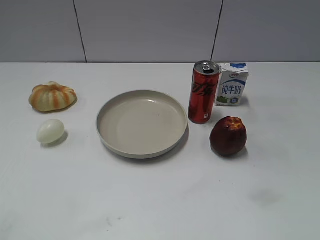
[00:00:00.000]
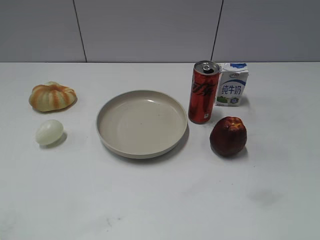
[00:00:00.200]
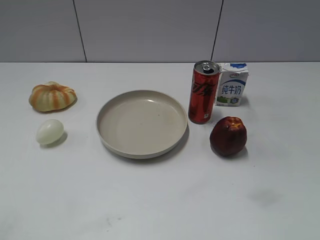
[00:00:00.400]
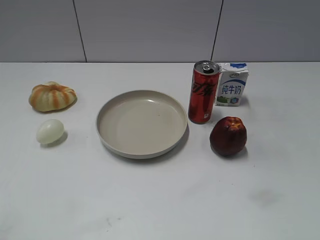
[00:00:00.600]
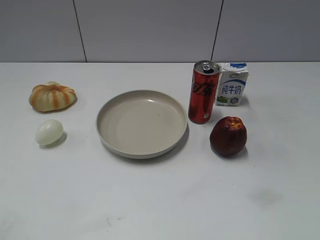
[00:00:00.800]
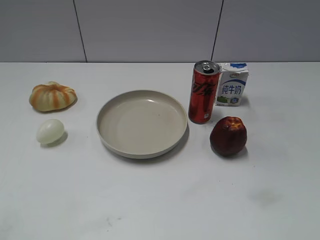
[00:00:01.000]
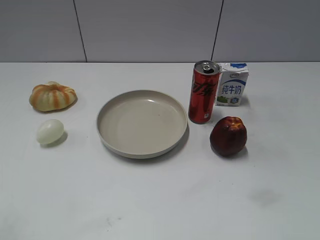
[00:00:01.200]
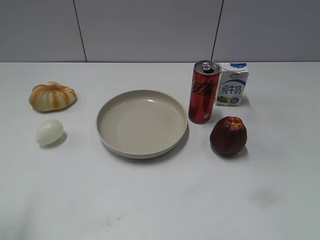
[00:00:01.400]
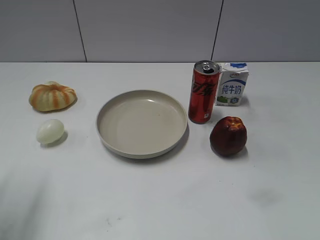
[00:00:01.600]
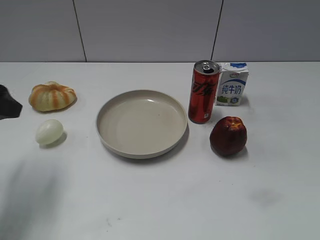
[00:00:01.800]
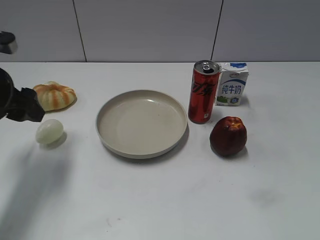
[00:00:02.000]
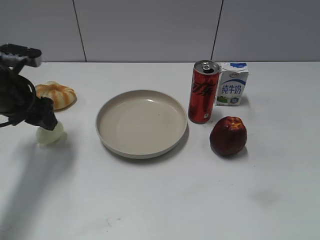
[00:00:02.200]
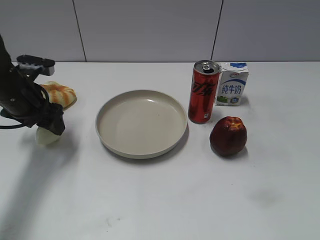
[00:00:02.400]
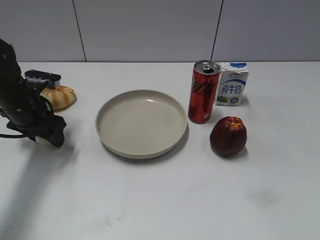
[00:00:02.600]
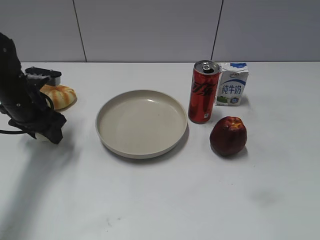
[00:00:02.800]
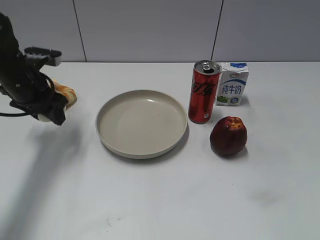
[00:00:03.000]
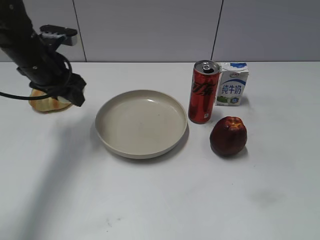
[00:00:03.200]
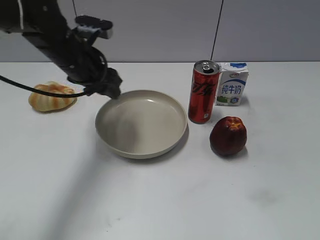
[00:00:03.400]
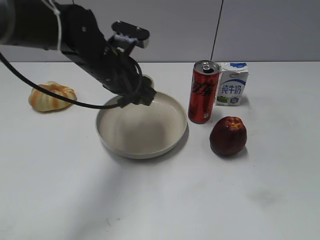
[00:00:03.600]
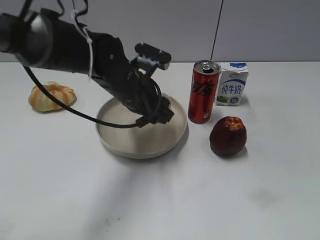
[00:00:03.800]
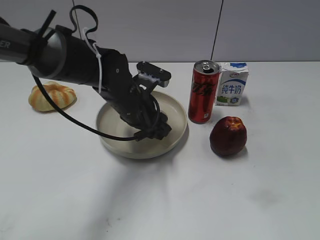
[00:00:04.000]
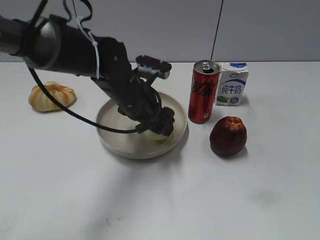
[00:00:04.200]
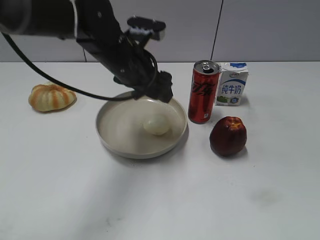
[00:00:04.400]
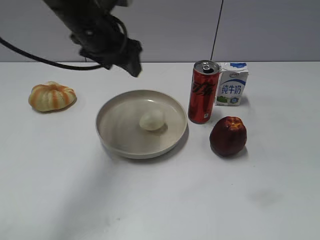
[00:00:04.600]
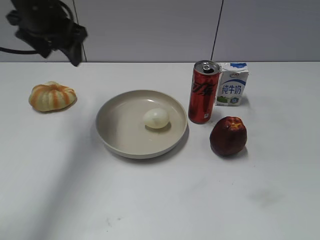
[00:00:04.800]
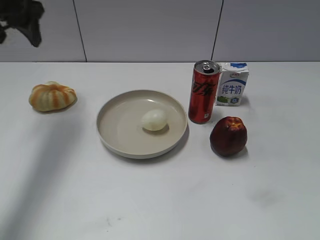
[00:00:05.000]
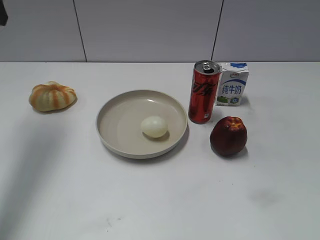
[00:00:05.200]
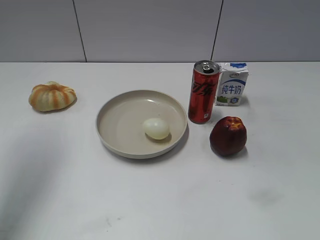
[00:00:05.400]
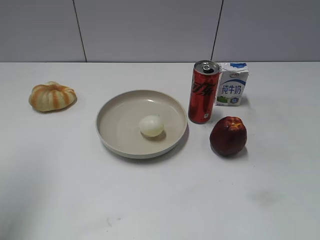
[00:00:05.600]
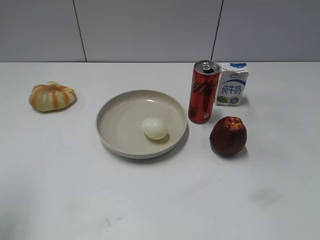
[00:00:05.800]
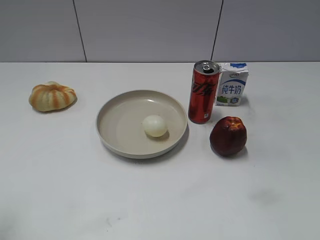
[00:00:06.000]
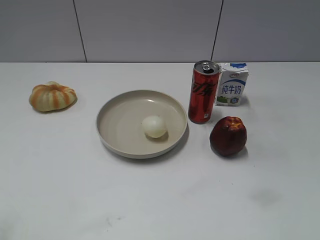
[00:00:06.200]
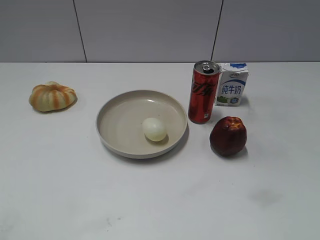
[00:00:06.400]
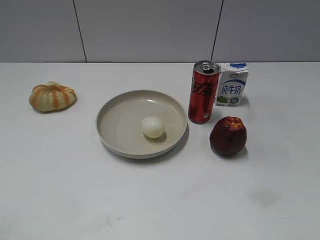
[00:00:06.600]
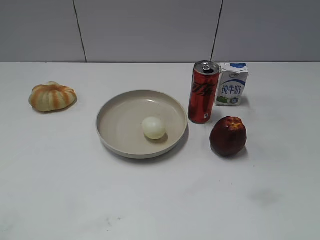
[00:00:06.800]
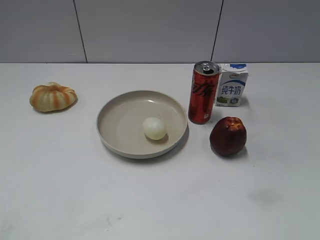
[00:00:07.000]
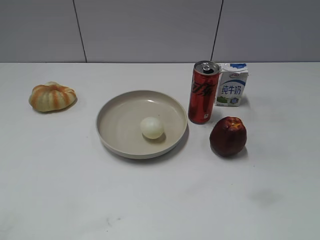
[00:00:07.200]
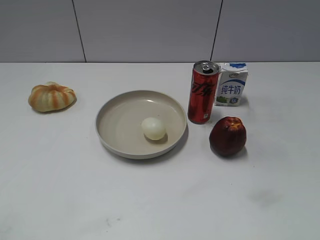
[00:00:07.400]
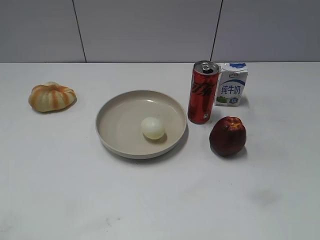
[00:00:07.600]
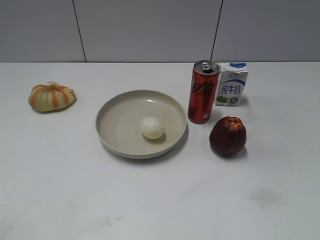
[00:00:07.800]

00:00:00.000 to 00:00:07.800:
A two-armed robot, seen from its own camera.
Step, 00:00:01.000 to 00:00:02.600: Grasp the egg with left gripper.
Step, 00:00:02.800 to 00:00:04.200: Place the egg on the plate with left gripper.
00:00:01.600 to 00:00:03.200: The left gripper shifts approximately 20 cm forward and to the right, and closes up.
00:00:03.200 to 00:00:04.600: The left gripper goes some 10 cm to the right and upward, and opens up.
00:00:04.600 to 00:00:06.200: The left gripper travels backward and to the left by roughly 35 cm.

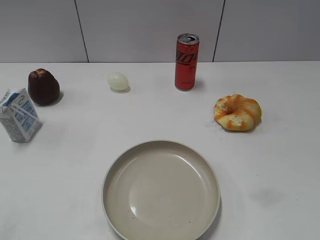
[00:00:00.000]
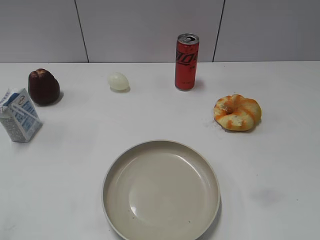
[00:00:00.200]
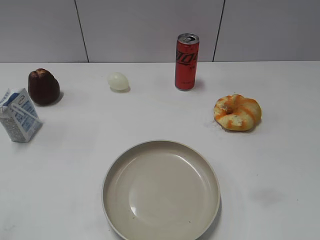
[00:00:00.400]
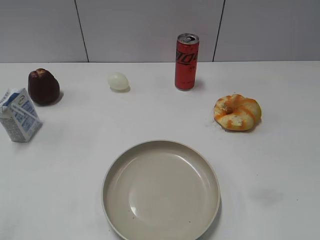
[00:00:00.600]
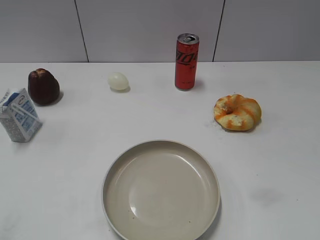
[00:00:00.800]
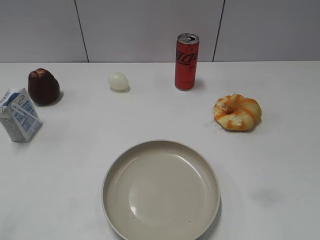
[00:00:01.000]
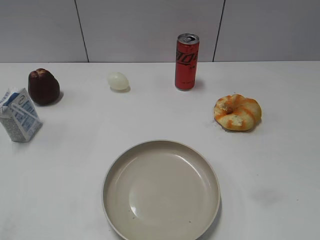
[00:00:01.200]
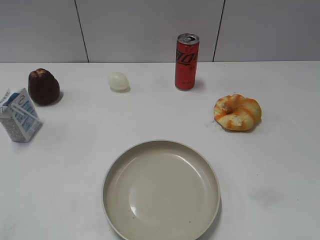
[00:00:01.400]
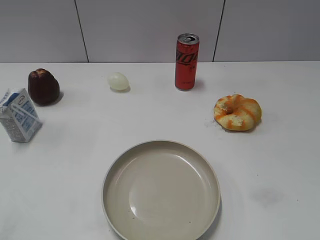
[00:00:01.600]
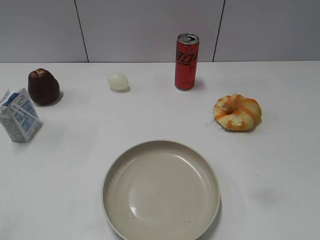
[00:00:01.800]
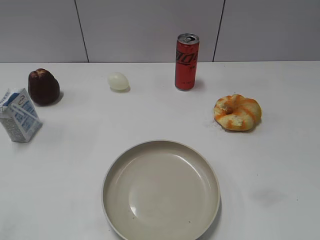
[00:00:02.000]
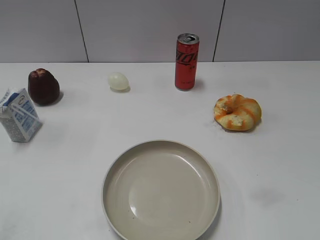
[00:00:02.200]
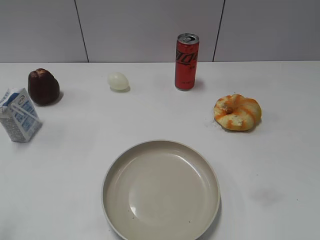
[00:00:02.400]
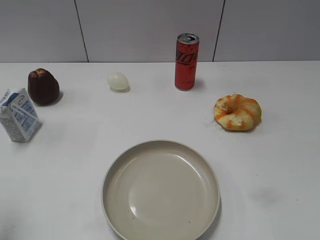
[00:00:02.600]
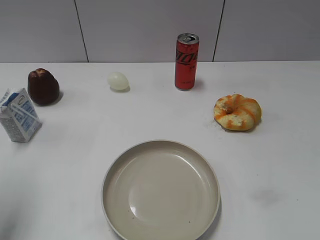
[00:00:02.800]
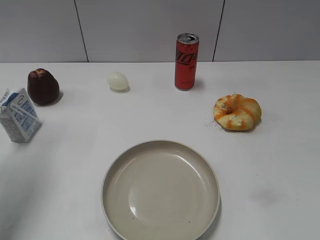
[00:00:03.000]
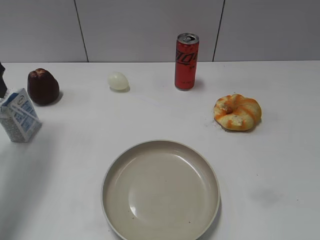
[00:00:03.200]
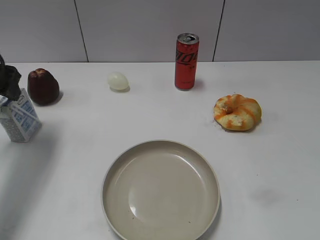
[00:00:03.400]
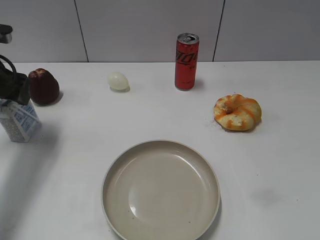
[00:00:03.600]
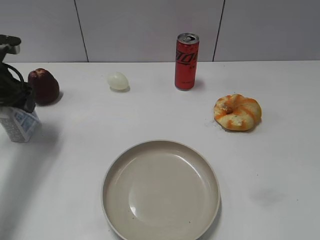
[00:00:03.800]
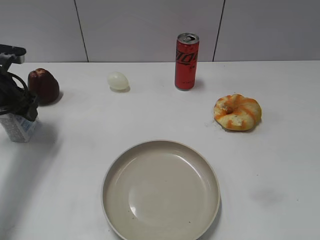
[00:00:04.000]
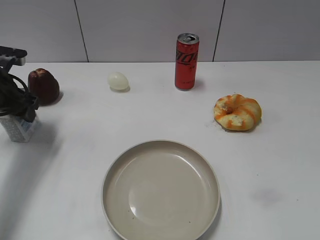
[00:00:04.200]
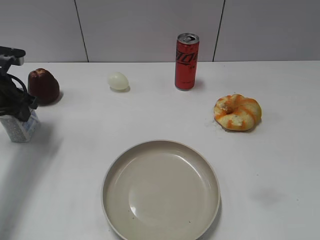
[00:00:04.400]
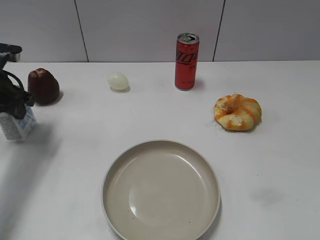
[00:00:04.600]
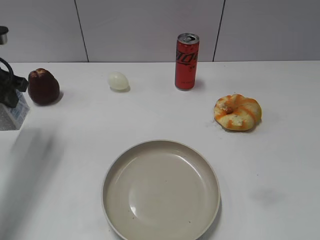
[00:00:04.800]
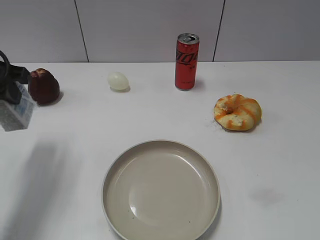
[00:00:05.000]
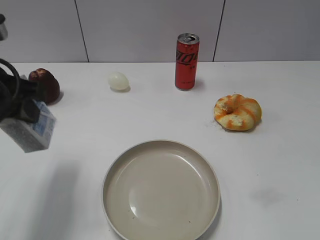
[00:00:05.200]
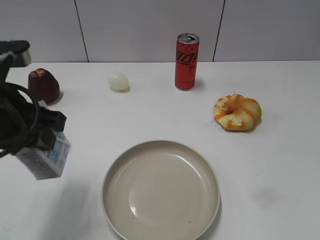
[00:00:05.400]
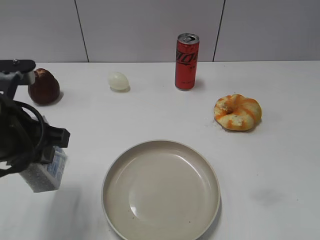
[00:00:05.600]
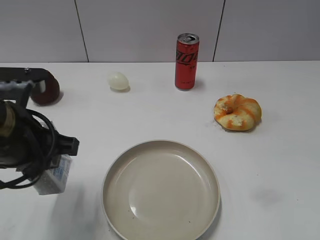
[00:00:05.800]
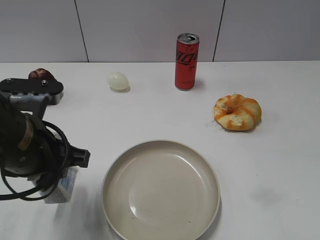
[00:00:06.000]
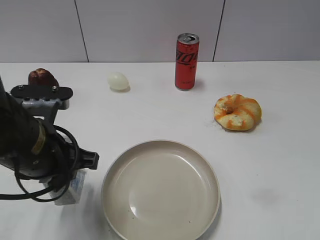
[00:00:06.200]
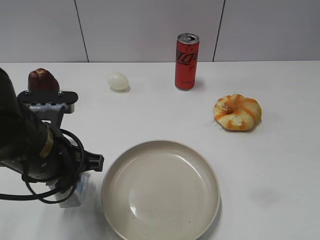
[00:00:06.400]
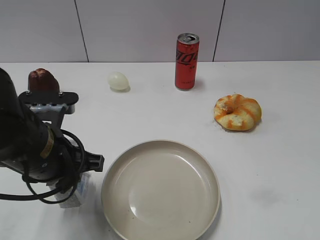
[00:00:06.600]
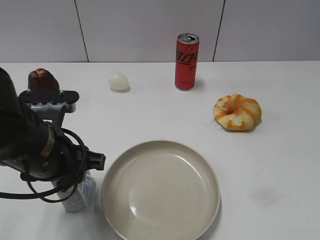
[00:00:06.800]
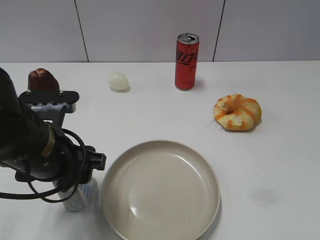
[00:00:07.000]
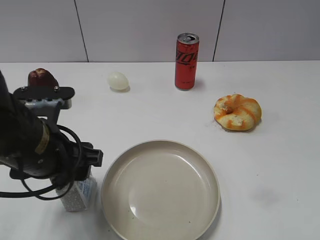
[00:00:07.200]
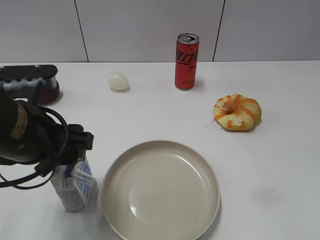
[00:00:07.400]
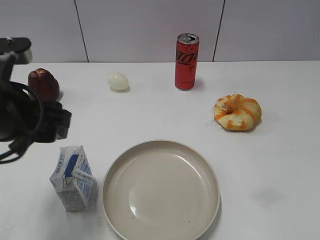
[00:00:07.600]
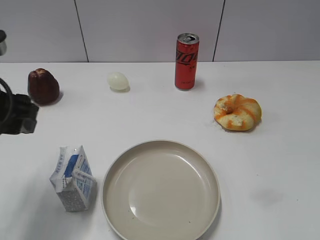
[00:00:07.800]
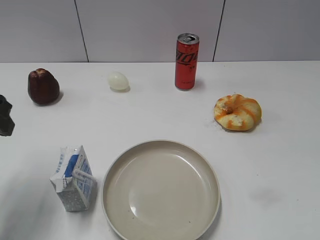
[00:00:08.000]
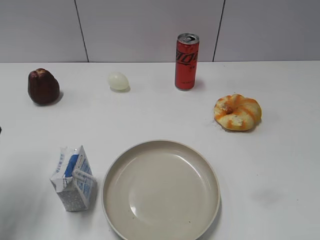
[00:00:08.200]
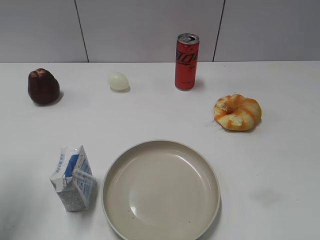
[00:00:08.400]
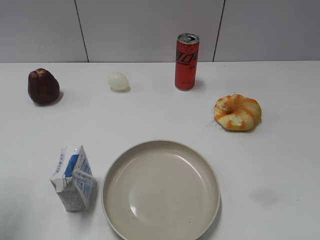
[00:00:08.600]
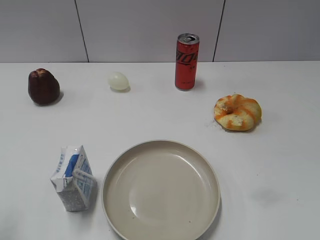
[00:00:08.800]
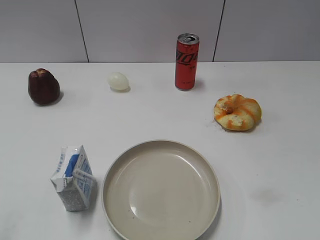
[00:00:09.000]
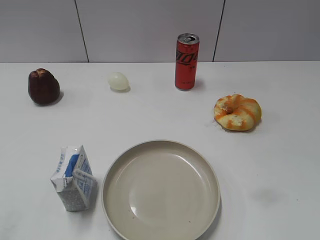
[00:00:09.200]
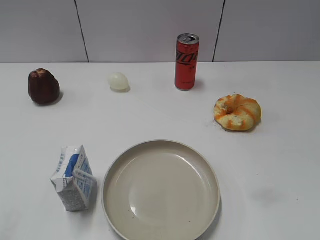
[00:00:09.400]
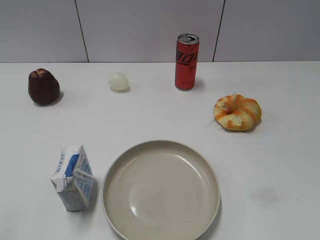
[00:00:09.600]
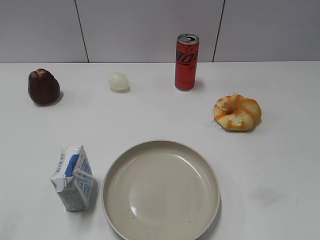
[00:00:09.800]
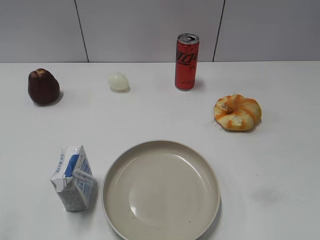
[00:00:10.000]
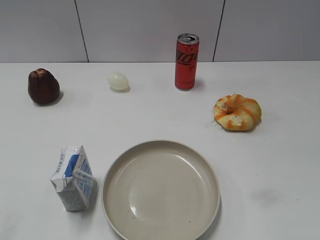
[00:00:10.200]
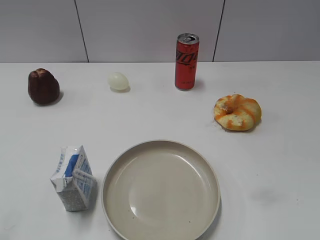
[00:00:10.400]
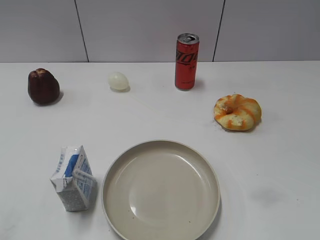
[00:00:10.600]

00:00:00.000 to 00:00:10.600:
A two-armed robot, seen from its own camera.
Step, 00:00:01.000 to 00:00:04.800: Grasp the milk with left gripper.
Step, 00:00:05.000 to 00:00:07.000: Place the milk on the table with left gripper.
00:00:01.600 to 00:00:03.000: The left gripper heads forward, covering some 25 cm.
00:00:03.000 to 00:00:04.600: The left gripper is displaced downward and forward by some 15 cm, and closes up.
00:00:04.600 to 00:00:06.000: The left gripper travels backward and to the right by some 20 cm.
00:00:06.000 to 00:00:07.600: The left gripper changes place by roughly 5 cm, and opens its fingers.
00:00:07.600 to 00:00:09.000: The left gripper moves backward and to the left, approximately 20 cm.
